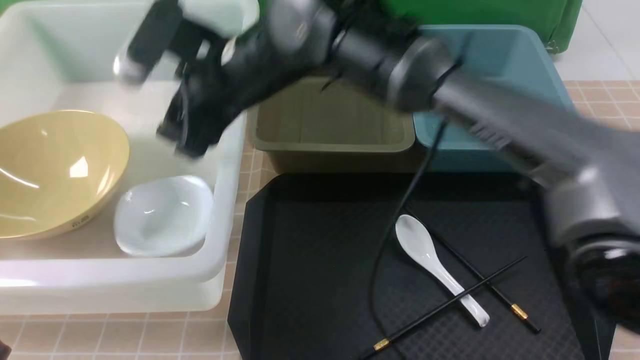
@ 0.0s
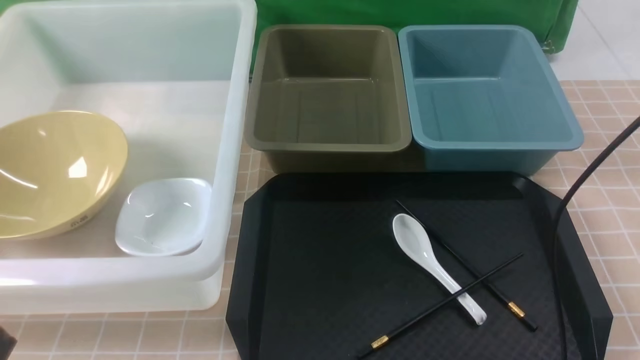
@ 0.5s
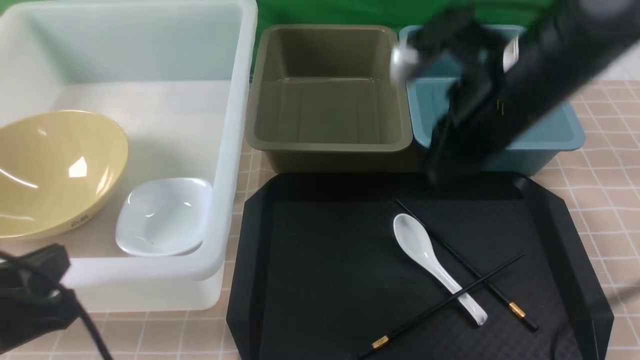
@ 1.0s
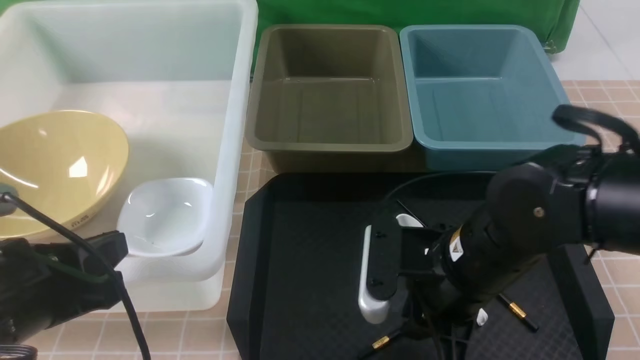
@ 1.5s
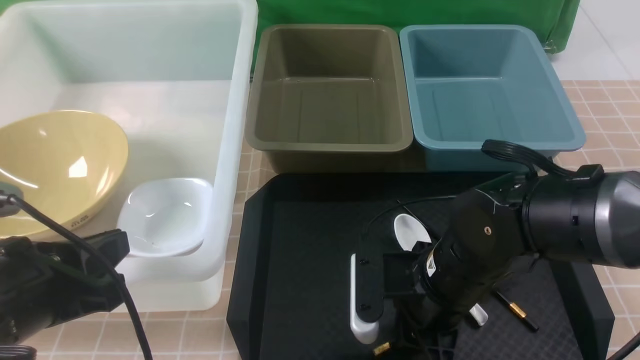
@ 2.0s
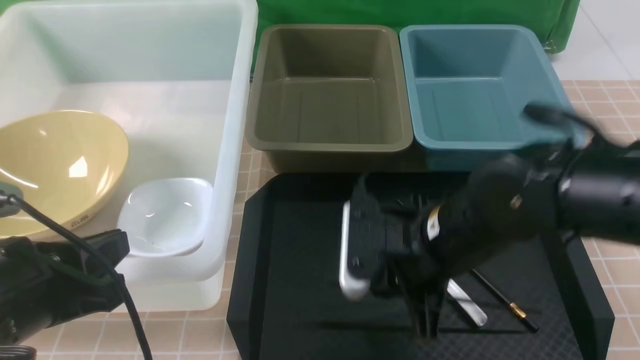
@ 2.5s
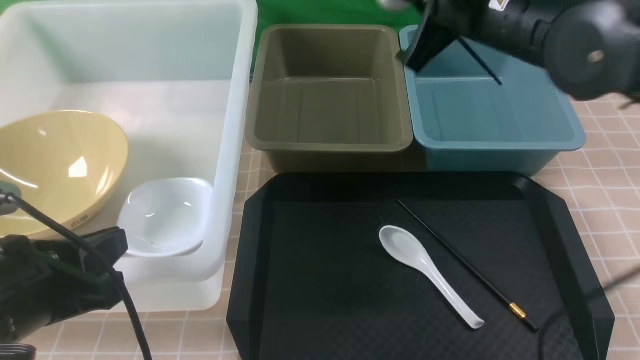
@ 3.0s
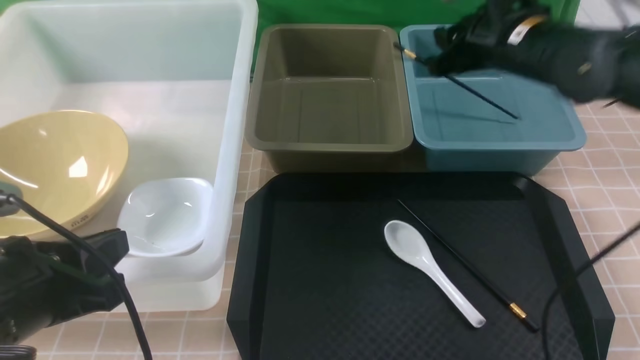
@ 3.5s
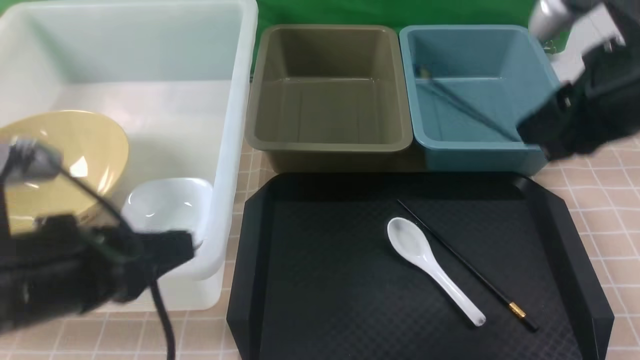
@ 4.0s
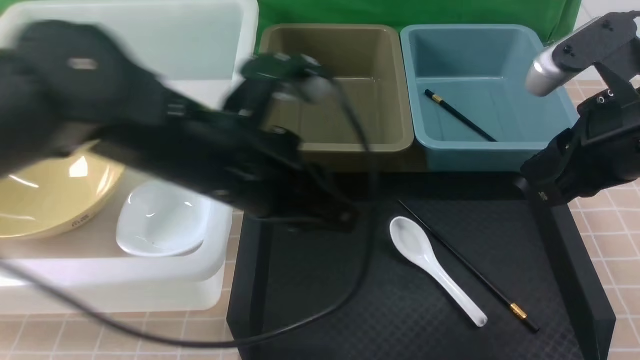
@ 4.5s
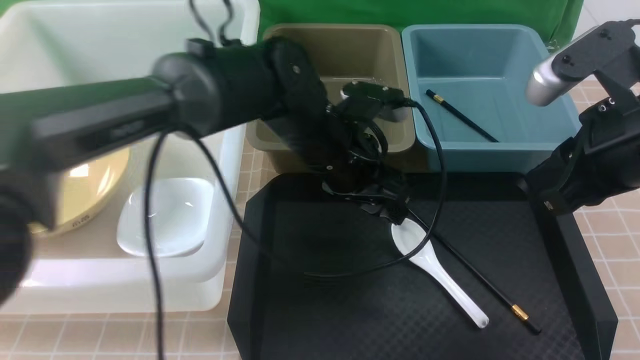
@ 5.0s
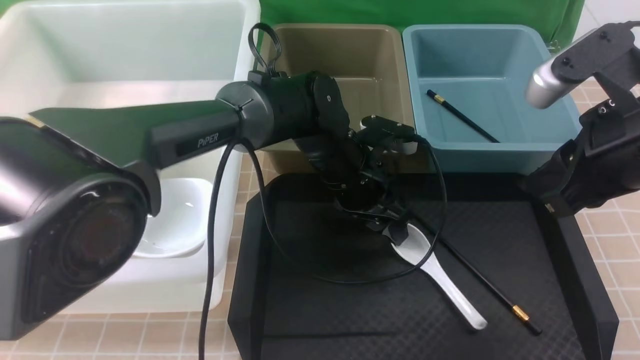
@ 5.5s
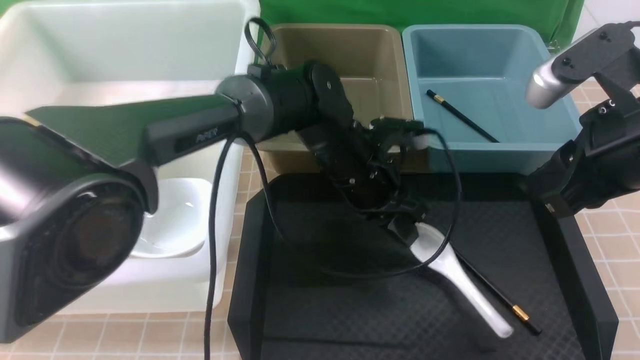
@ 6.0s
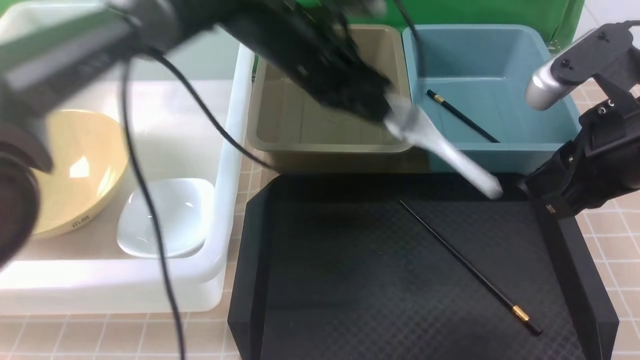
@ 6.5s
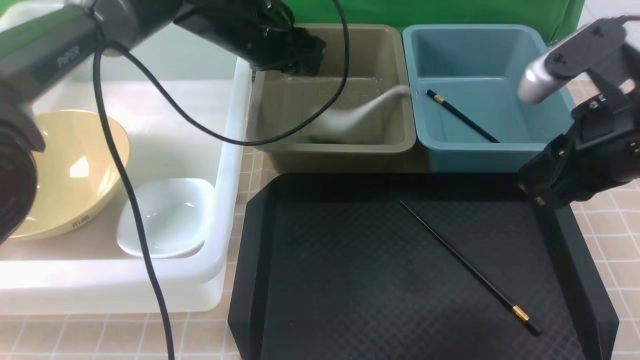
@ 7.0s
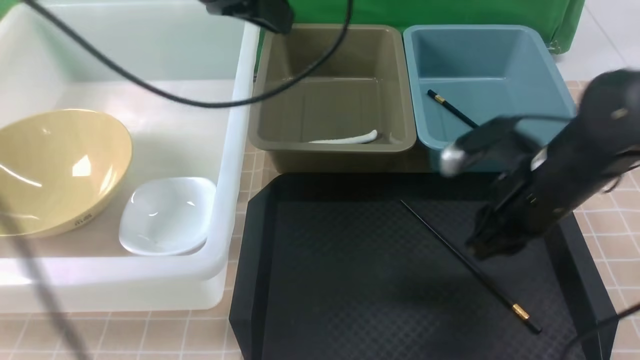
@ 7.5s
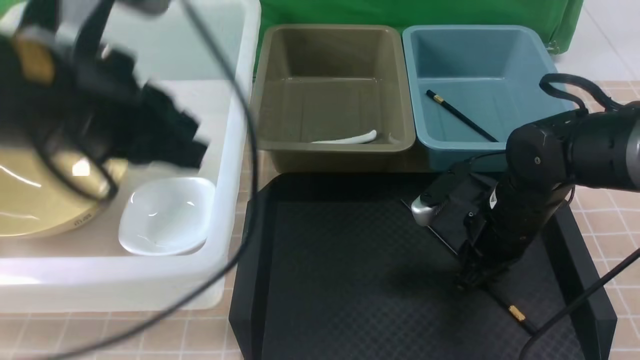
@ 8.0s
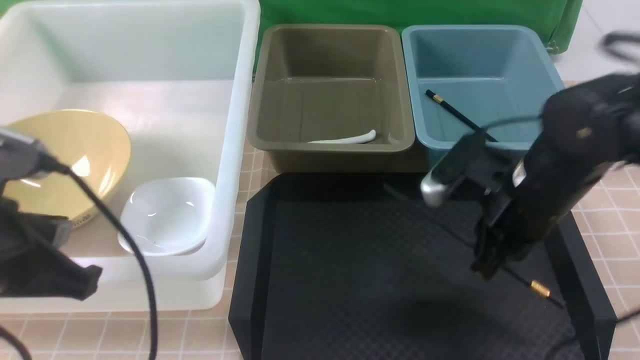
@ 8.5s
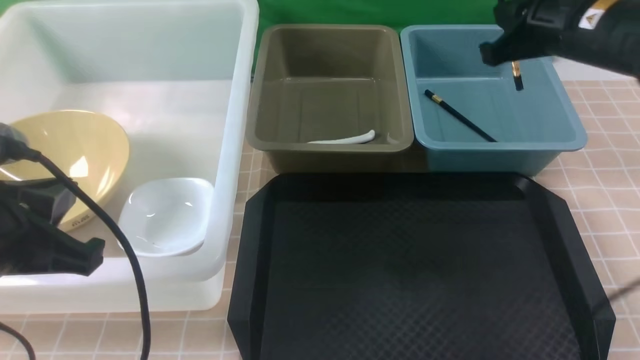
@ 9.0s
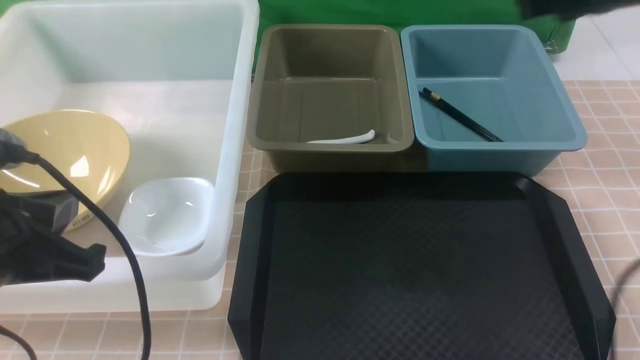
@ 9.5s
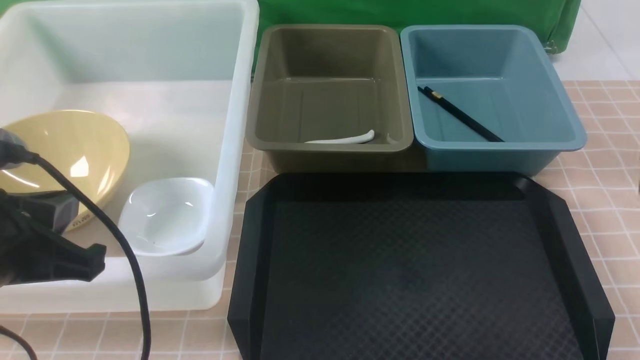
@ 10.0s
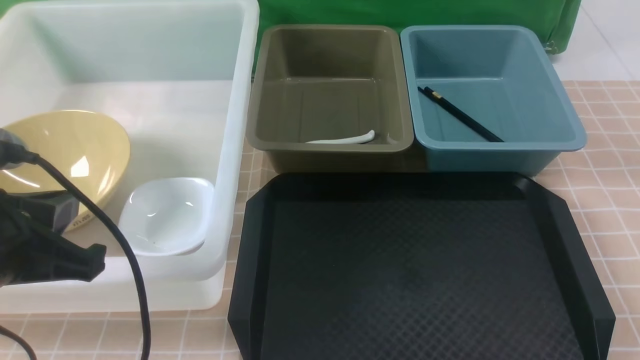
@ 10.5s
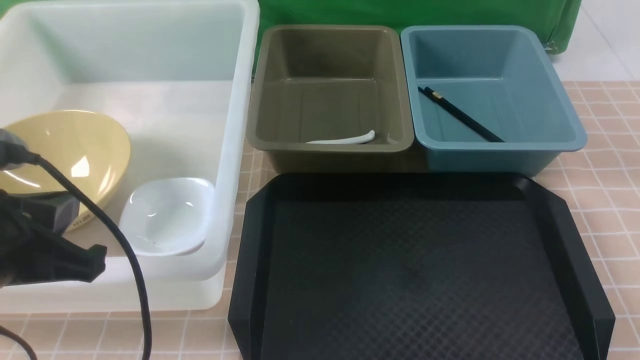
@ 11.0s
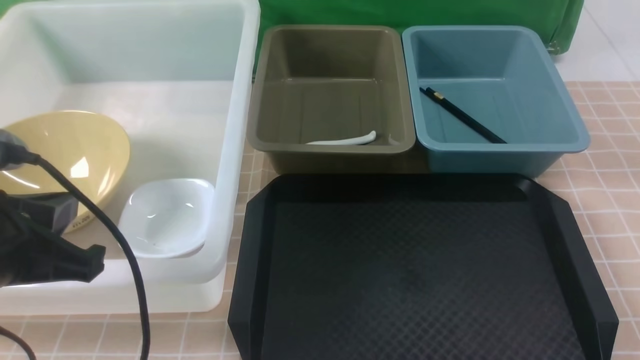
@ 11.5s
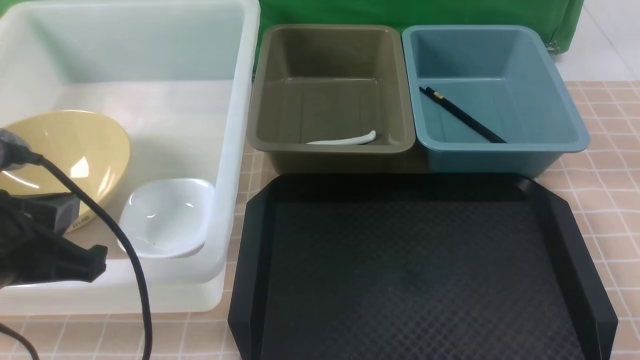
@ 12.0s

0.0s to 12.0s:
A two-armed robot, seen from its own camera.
Task of the whole recording: on brown table put chopsticks spoon bowls plates into blue grey white boxes.
Step, 0.5s to 2.5s: use the right arm to grab a chopstick.
Step, 3.0s to 3.5s: use the right arm to put a chopstick into the small storage box on the right.
Step, 4.0s to 6.0s: use the left arm to grab the soup spoon in the middle.
Step, 6.5s to 7.5s: use the left arm to put the soup spoon into the small storage box in the middle.
Step, 8.0s to 8.5s: use the right arm to grab a chopstick.
Step, 9.0s to 9.5s: use the right arm to put a chopstick into the small storage box on the right.
0.0s to 2.0s: The right gripper moves downward, backward and to the right, approximately 25 cm, and closes its fingers. Meanwhile the left gripper heads forward, covering about 10 cm.
2.0s to 4.0s: The right gripper travels upward and to the right by some 20 cm, and closes, then reopens, while the left gripper changes place by approximately 5 cm.
4.0s to 6.0s: The left gripper heads to the right, forward and downward, covering roughly 30 cm, and opens and closes again.
6.0s to 8.0s: The right gripper is displaced downward and forward by about 20 cm, while the left gripper is displaced to the left, upward and backward by some 30 cm, and opens and closes again.
8.0s to 10.0s: The right gripper is displaced upward, backward and to the right by about 25 cm, and closes up. Meanwhile the left gripper shifts approximately 10 cm downward, backward and to the left.
10.0s to 12.0s: The right gripper is displaced downward and backward by about 20 cm.

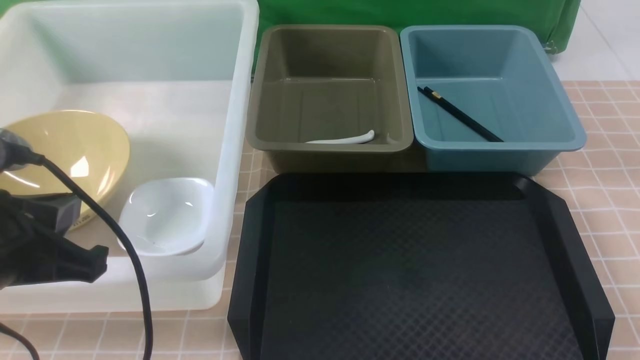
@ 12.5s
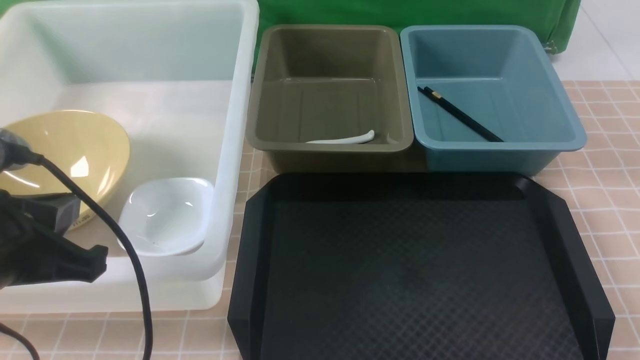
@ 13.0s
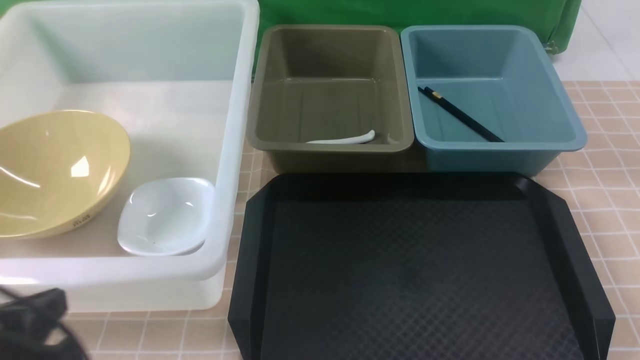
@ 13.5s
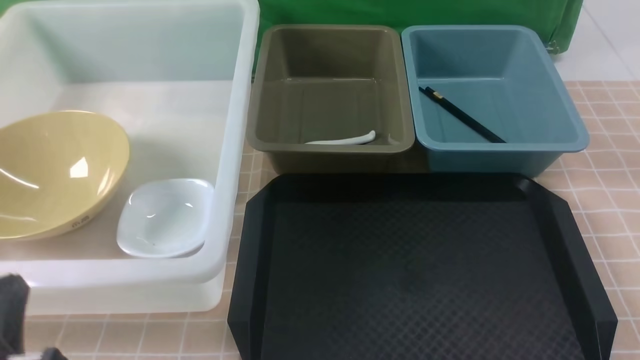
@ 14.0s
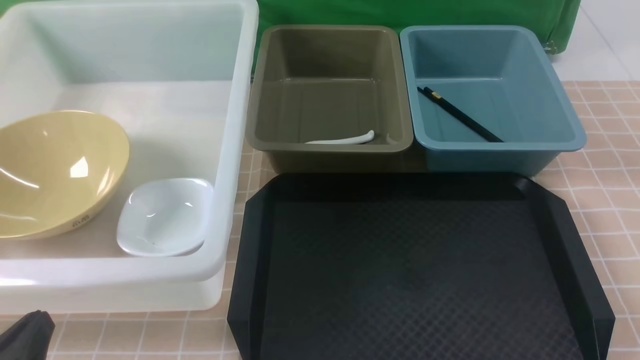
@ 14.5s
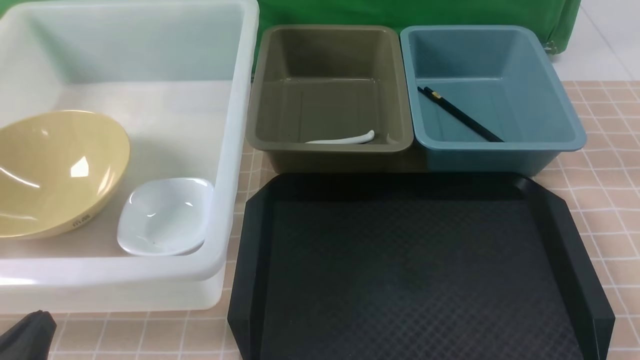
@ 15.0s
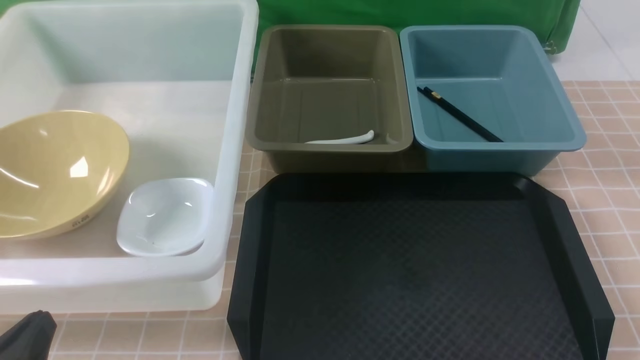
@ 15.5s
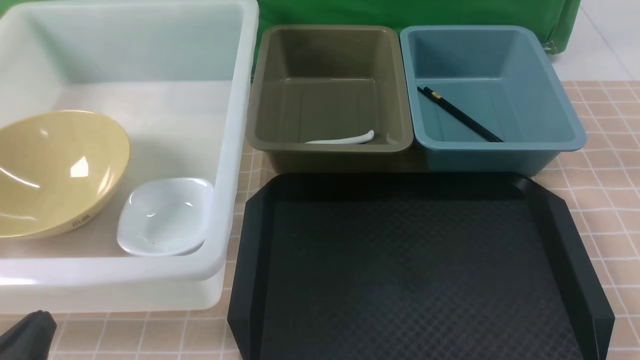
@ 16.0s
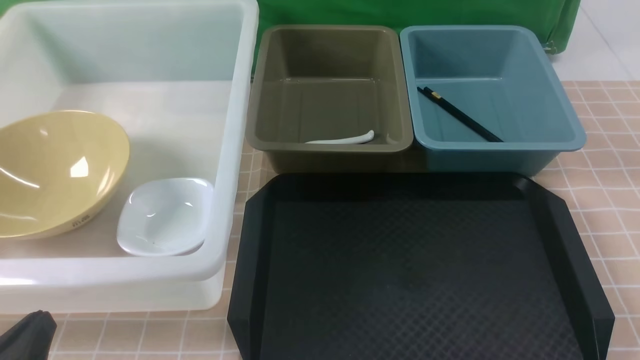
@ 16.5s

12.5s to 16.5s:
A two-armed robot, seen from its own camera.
Task of the whole recording: on brown table put chopsticks spoon bowls plates into blue grey white boxes.
12.5s to 14.5s: The left gripper is displaced downward and backward by about 15 cm.
14.5s to 16.5s: Both grippers stay about where they are.
